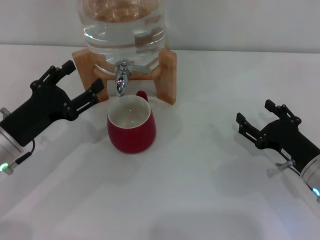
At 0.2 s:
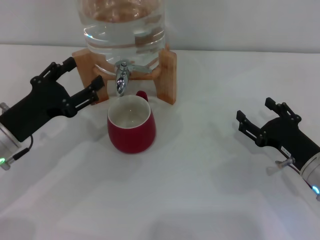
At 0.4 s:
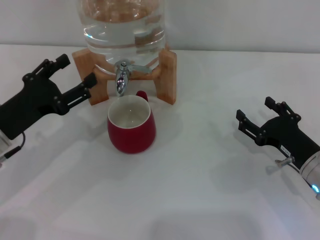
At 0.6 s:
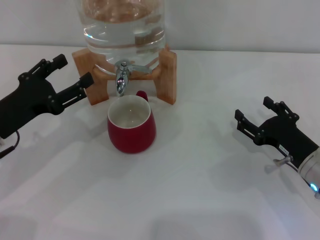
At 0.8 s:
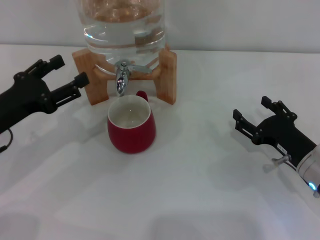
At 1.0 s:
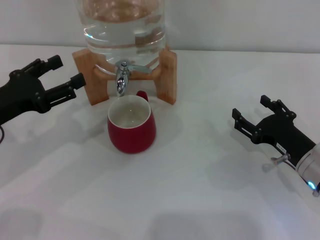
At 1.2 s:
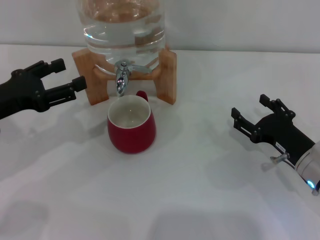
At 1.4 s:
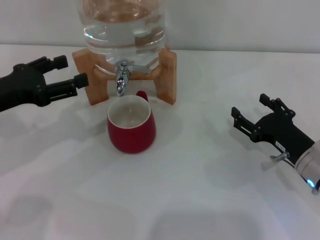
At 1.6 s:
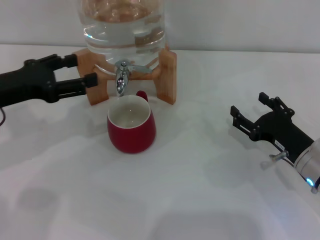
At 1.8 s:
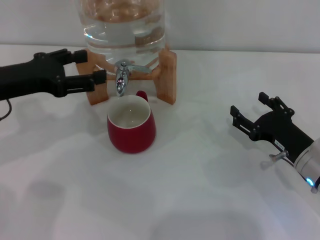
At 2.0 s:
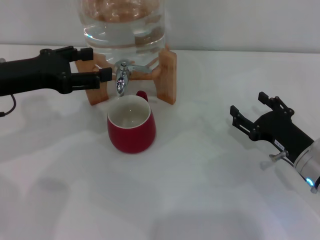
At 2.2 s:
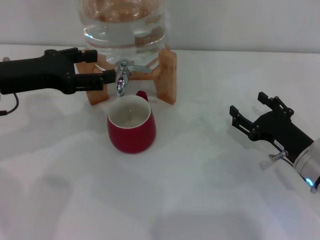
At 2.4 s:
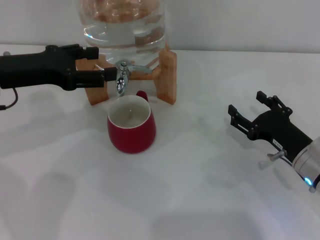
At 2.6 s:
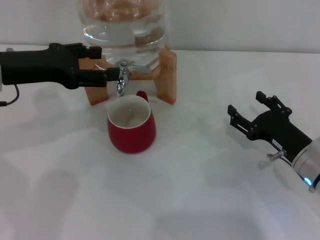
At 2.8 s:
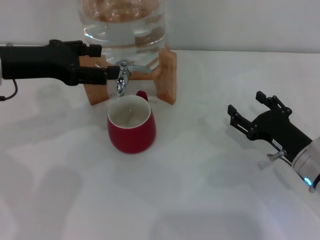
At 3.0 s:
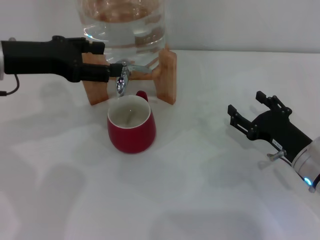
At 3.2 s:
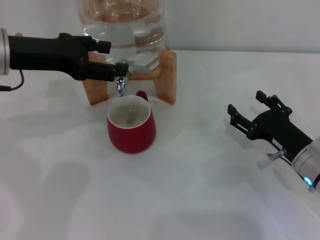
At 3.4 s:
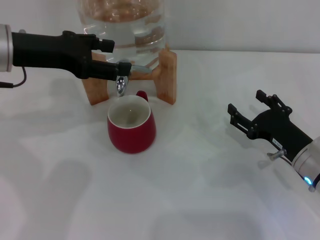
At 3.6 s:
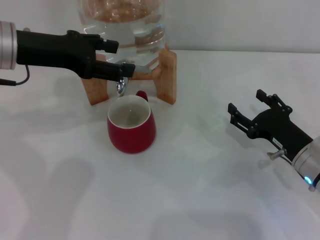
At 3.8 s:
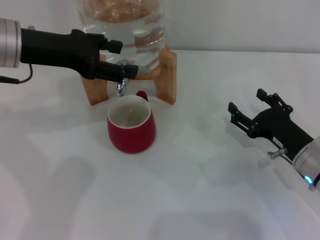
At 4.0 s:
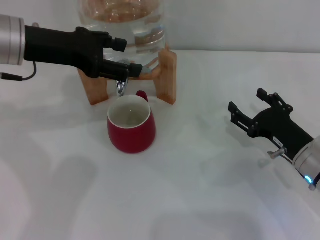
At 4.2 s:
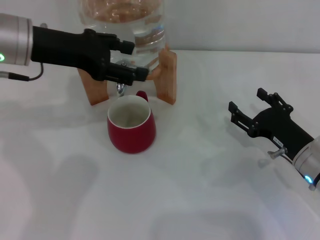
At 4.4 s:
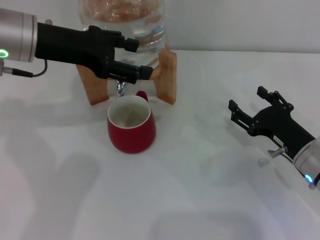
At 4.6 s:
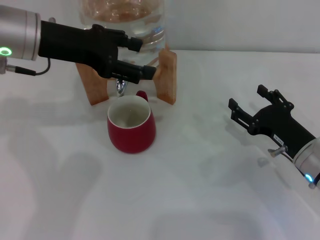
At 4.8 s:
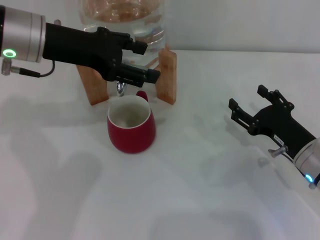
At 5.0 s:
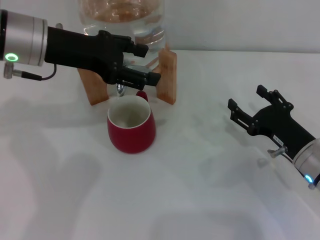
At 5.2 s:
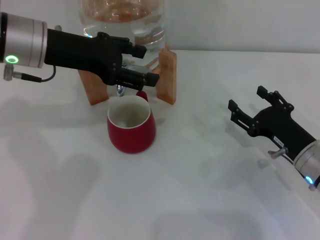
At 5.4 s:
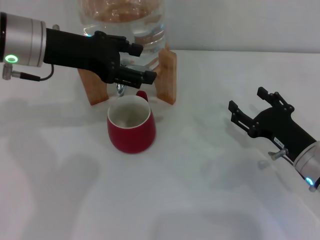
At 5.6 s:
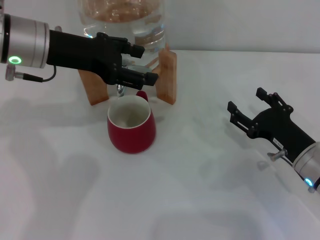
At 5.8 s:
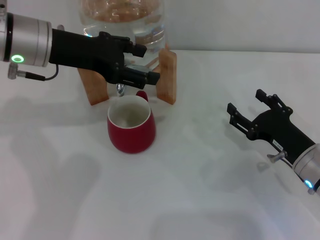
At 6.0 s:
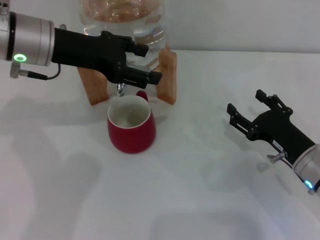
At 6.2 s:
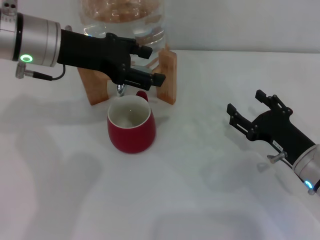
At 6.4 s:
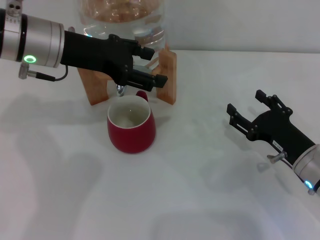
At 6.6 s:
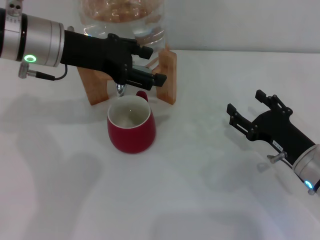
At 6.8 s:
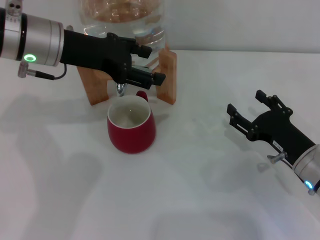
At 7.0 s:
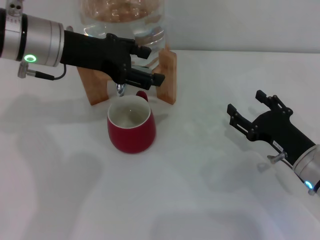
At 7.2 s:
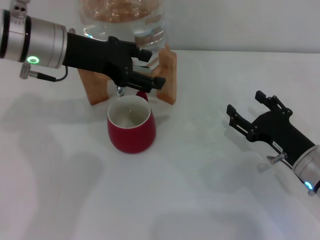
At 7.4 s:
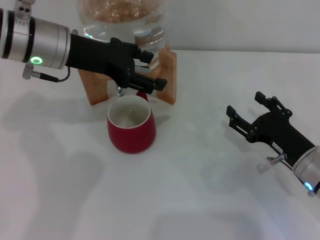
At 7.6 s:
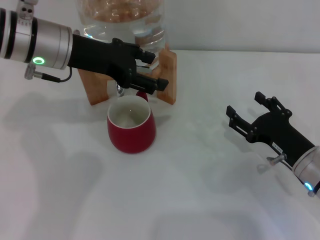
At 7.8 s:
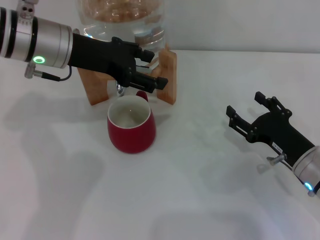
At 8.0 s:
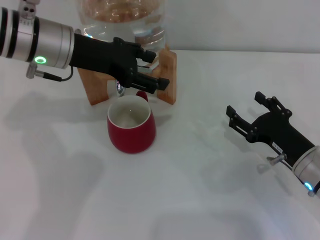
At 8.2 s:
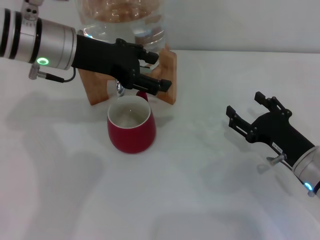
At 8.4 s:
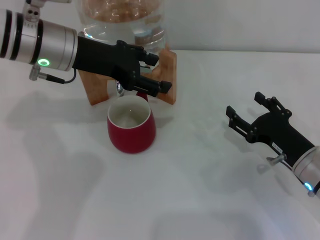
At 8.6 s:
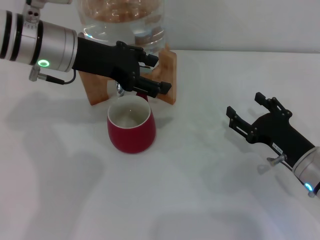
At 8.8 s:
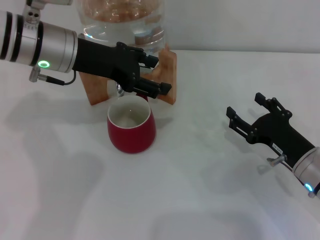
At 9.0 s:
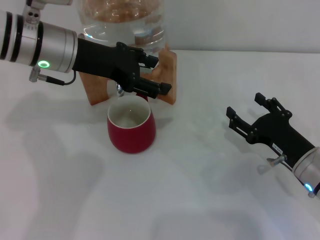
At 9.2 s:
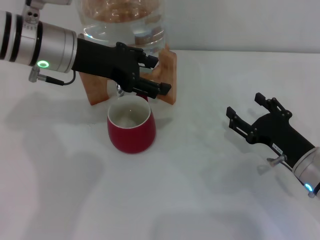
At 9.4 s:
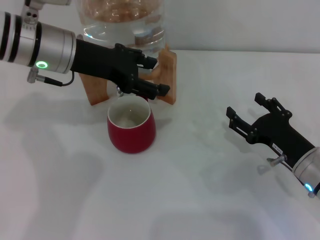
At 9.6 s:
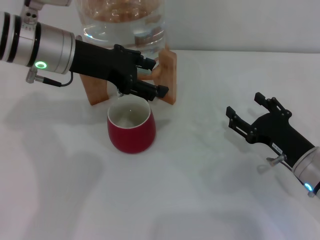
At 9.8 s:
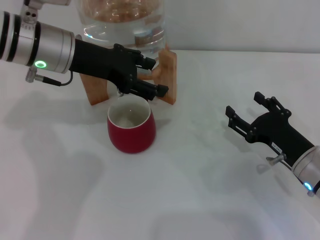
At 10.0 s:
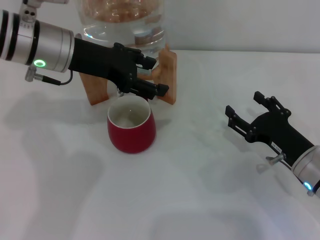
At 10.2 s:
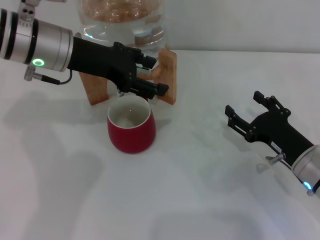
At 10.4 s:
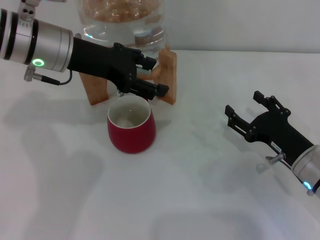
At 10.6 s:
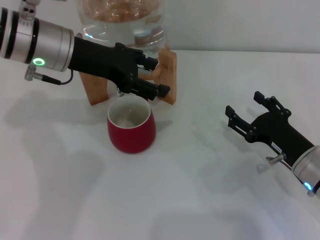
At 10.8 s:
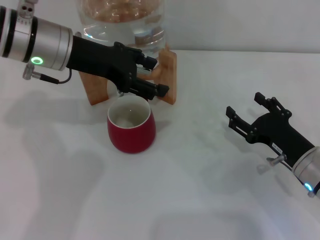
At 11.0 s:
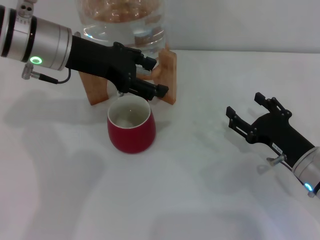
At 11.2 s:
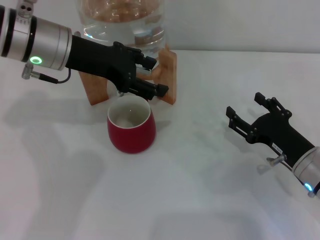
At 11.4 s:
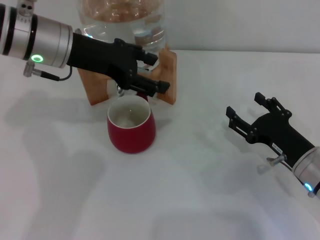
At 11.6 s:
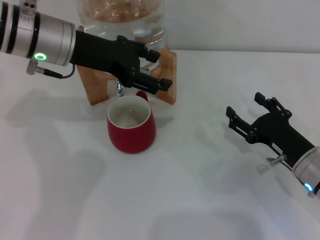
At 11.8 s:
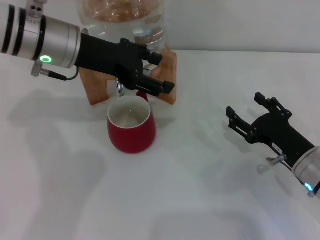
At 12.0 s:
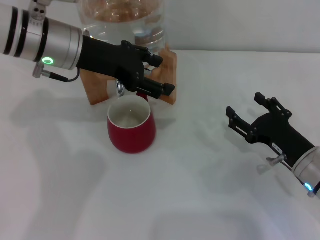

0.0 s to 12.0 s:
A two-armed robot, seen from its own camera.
Task of the whole recording: the right gripper pick up the red cup and place it horizontally under the faucet, the left gripper turn on the faucet to fill the cup, and then turn off the faucet.
0.0 to 1.6 s: The left gripper goes some 10 cm upward.
1.6 to 3.0 s: The left gripper travels upward by approximately 5 cm.
3.0 to 4.4 s: The left gripper changes place by approximately 5 cm.
4.4 to 7.6 s: The grippers move only a little.
7.6 to 12.0 s: Neither gripper changes place.

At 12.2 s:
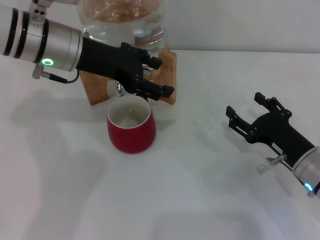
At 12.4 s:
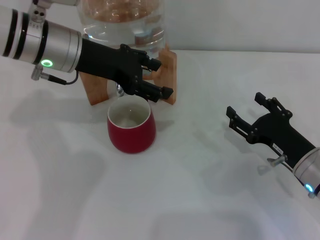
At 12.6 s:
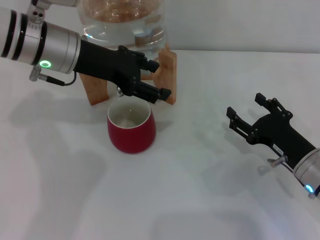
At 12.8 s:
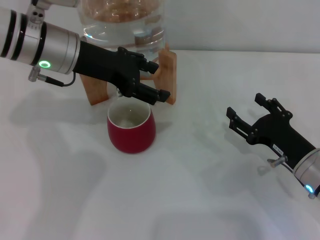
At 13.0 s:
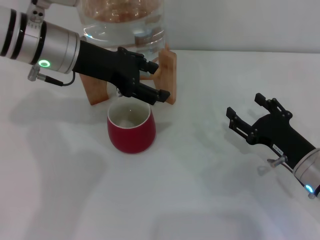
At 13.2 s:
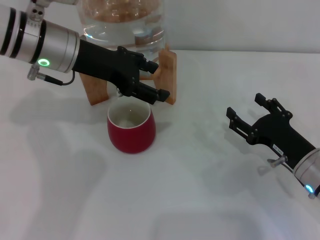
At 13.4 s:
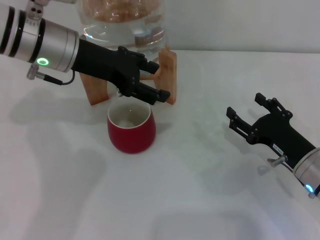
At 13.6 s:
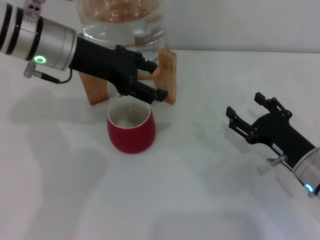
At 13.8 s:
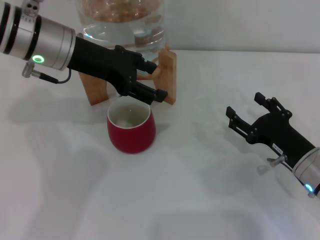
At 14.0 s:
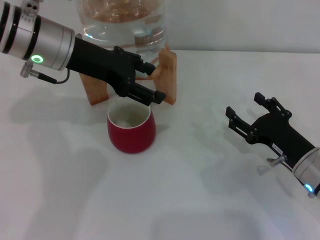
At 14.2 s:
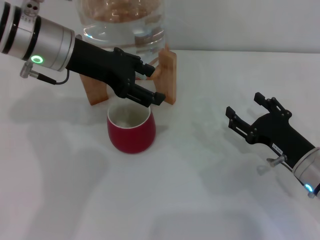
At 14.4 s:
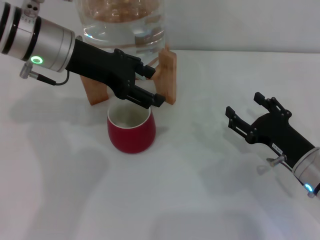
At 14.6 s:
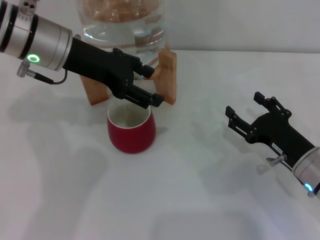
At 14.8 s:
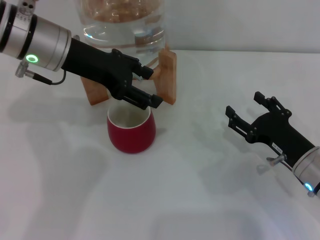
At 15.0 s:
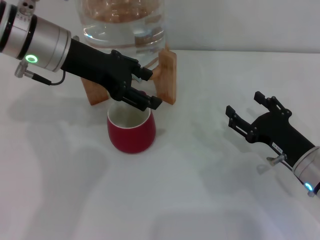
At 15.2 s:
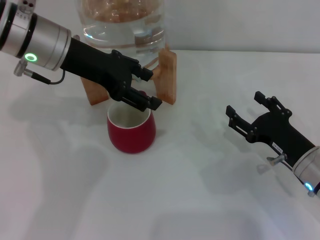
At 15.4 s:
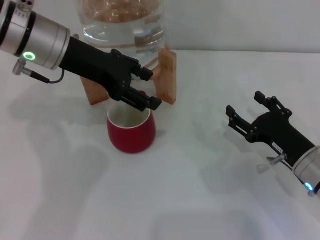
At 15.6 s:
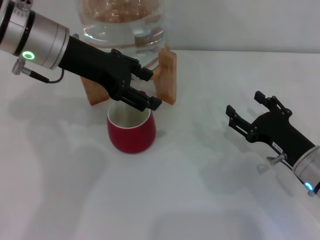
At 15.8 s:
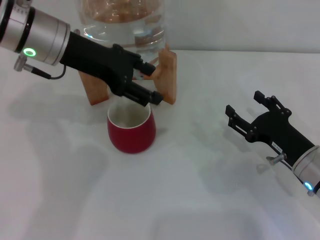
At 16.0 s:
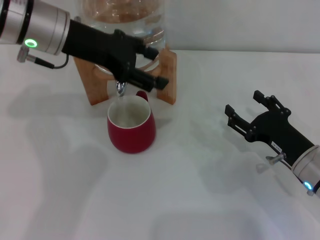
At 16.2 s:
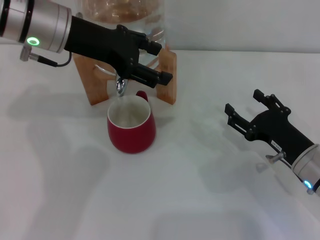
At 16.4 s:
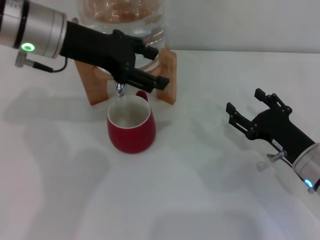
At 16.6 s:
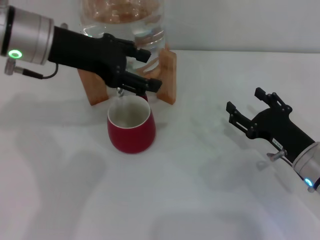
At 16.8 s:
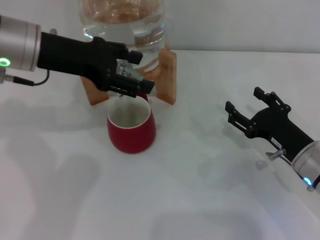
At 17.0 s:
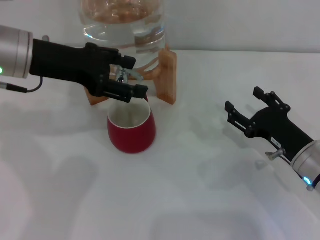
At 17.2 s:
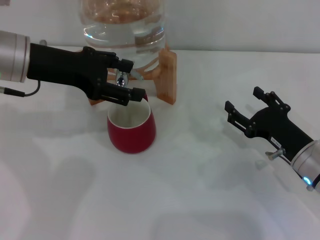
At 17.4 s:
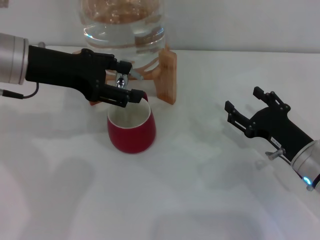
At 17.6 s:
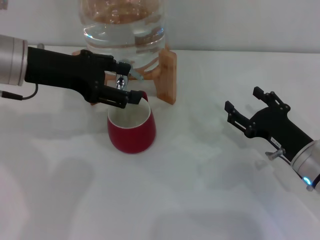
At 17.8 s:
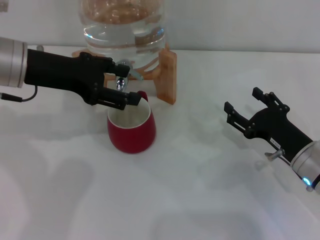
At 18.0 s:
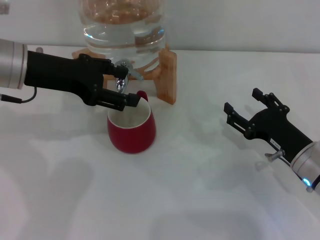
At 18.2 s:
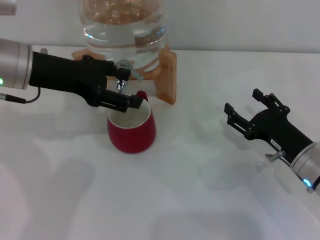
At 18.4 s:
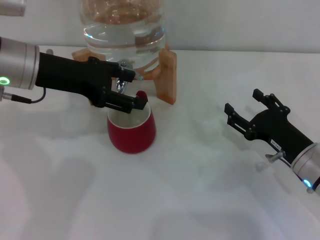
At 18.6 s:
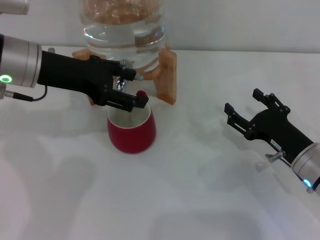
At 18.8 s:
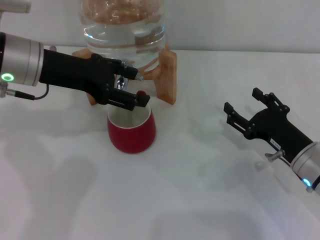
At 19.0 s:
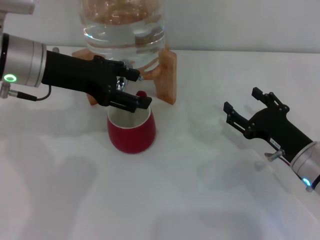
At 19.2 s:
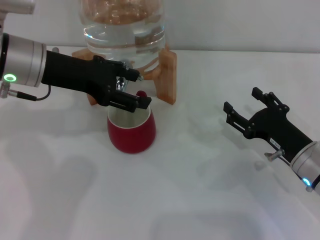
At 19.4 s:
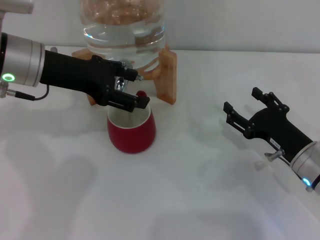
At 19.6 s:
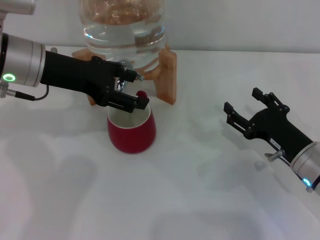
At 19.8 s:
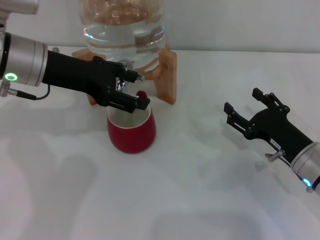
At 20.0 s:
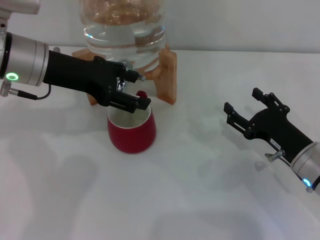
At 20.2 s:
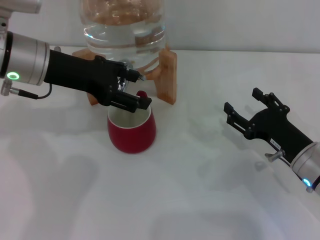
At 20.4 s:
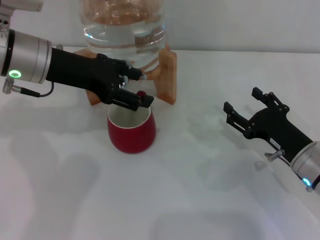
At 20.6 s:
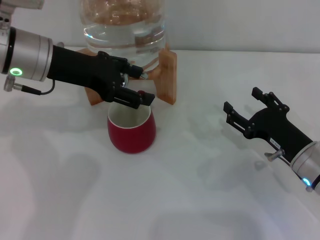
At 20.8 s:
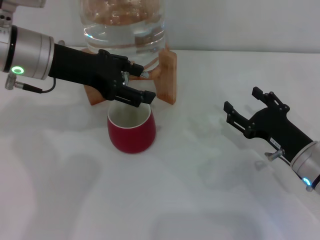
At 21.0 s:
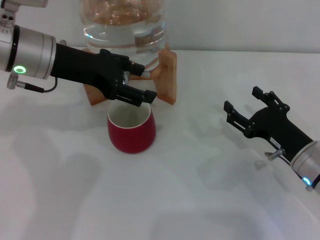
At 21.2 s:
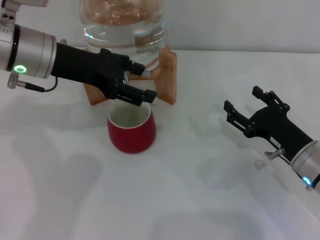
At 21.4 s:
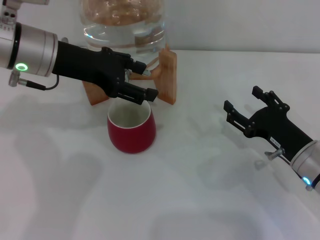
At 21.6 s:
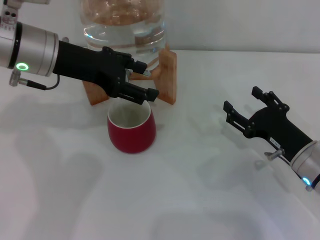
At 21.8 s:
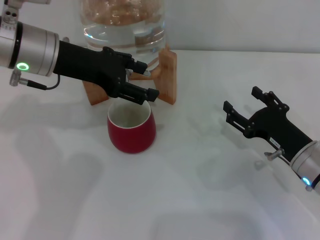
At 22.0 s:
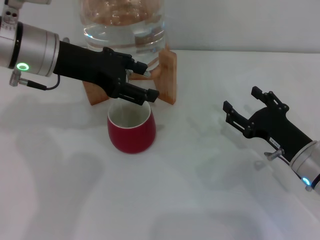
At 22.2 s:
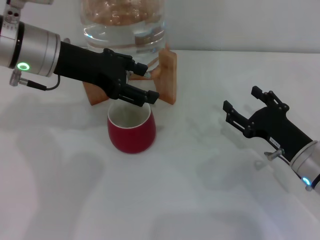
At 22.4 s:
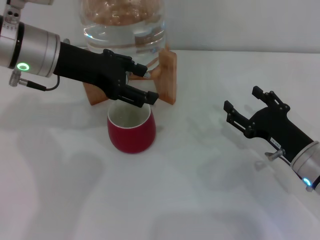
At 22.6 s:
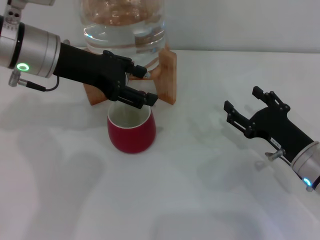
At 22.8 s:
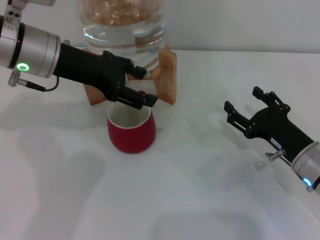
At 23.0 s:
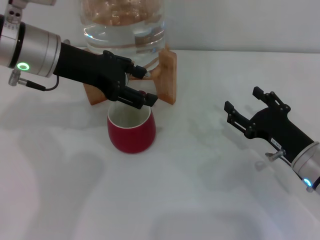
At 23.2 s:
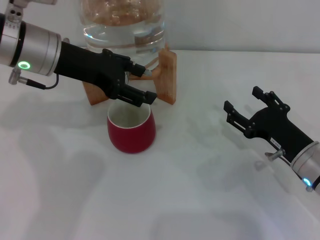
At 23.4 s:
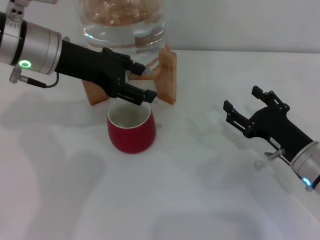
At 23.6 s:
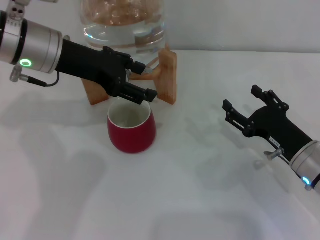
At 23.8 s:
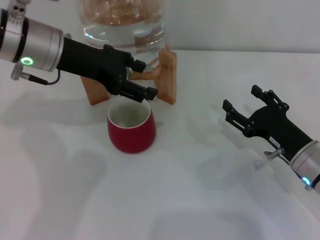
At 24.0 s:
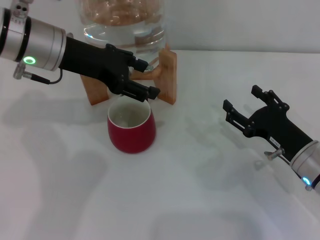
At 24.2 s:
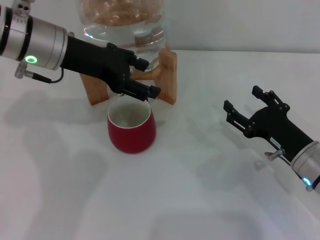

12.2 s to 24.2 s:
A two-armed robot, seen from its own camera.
Task of the whole recording: the right gripper pick up the red cup and place it horizontally under the faucet, the left gripper turn on the faucet to fill the cup, and then turn off the faucet.
Step, 12.2 to 18.0 s: Open the dispenser valve and fill the cup with water with the left gripper.
12.2 to 13.8 s: The two grippers keep their place.
13.8 to 15.2 s: Both grippers stay put.
15.2 to 19.8 s: There are only small adjustments of the grippers.
19.8 to 21.2 s: Both grippers stay about where they are.
21.2 to 22.6 s: Both grippers stay put.
22.6 to 24.2 s: Both grippers stay put.
